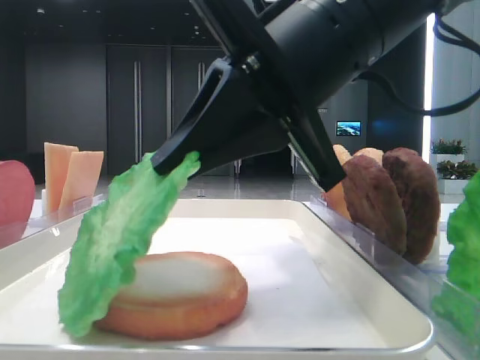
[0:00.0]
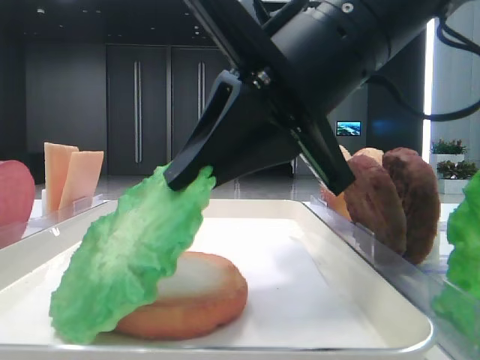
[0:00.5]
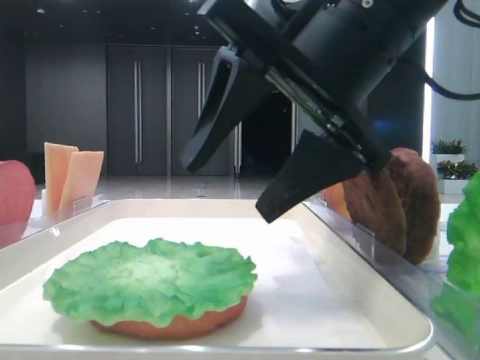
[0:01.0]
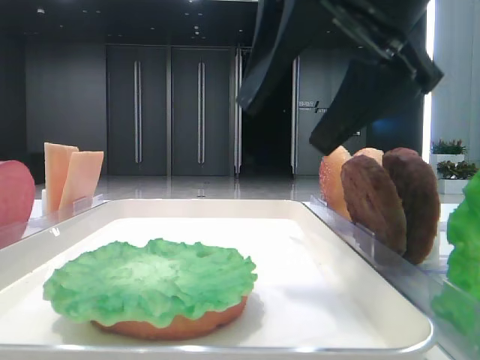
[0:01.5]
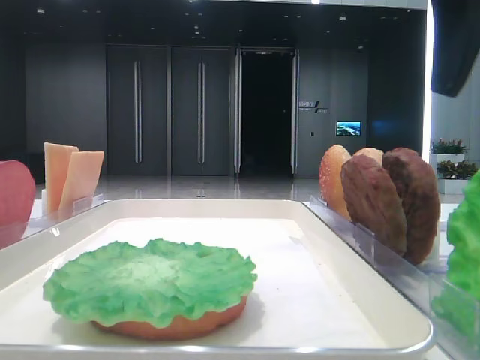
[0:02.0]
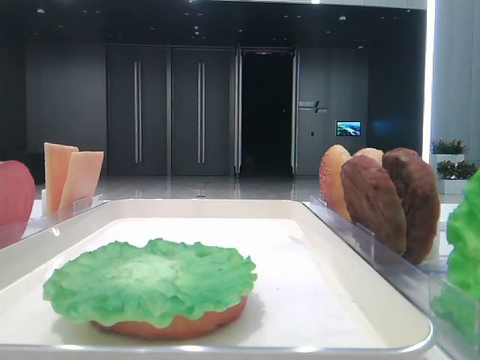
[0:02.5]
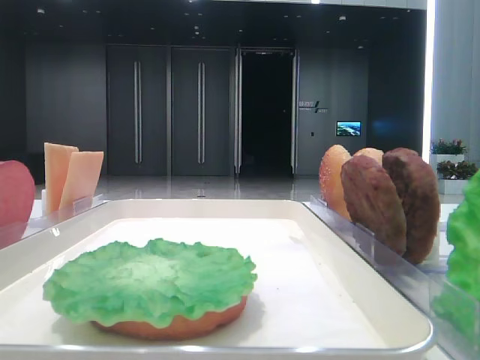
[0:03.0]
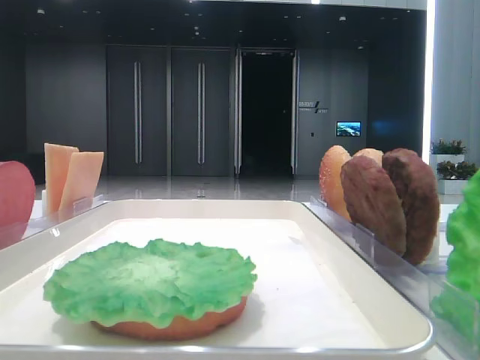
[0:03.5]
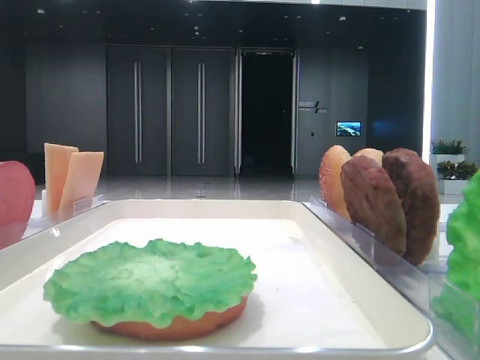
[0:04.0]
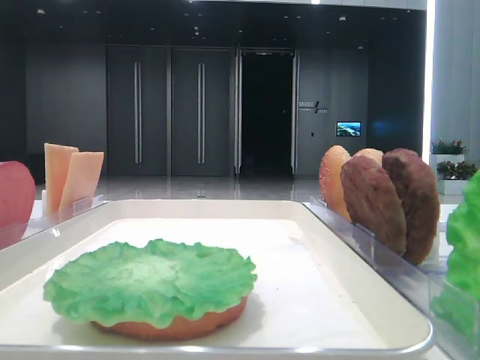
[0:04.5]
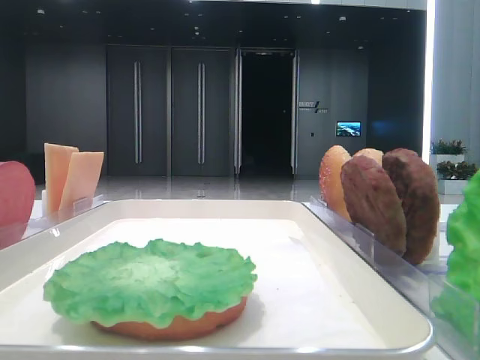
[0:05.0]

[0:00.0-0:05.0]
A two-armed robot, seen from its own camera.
0:00.0 to 0:02.5: The right gripper travels to the right by some 25 cm, and opens its fingers.

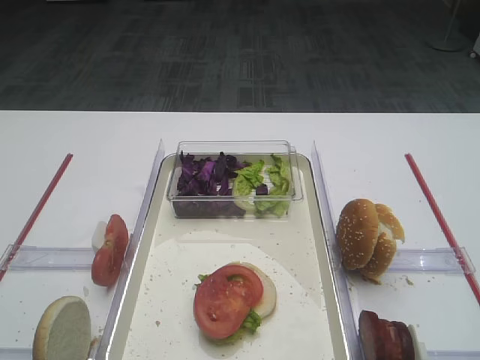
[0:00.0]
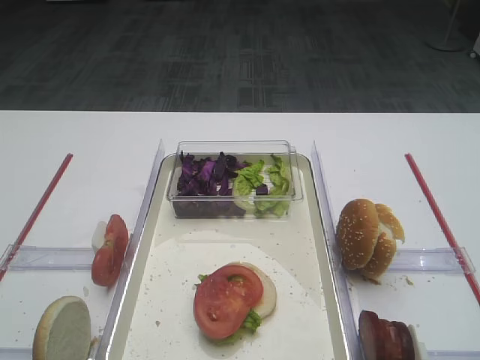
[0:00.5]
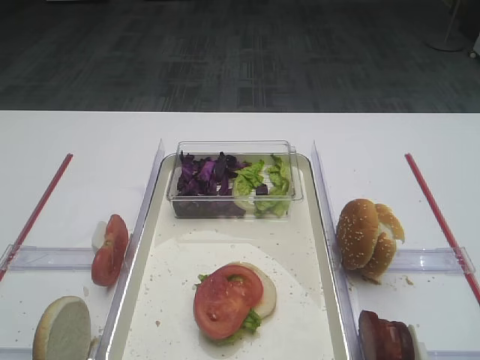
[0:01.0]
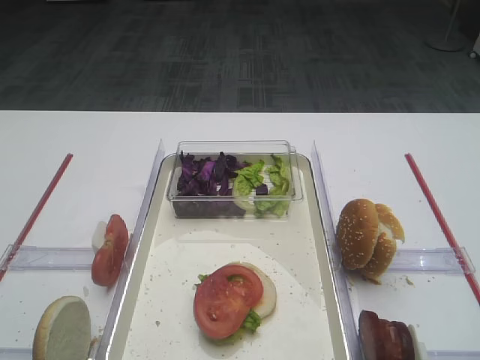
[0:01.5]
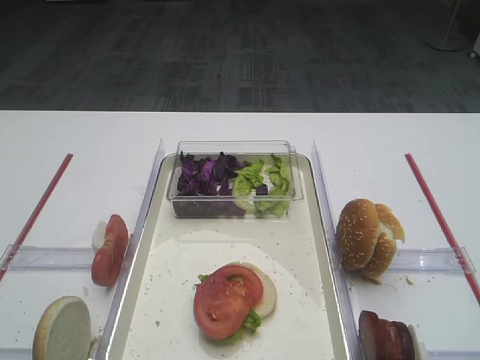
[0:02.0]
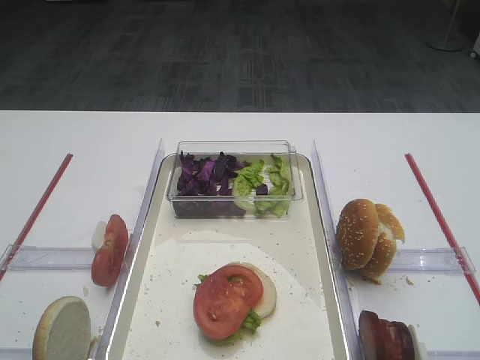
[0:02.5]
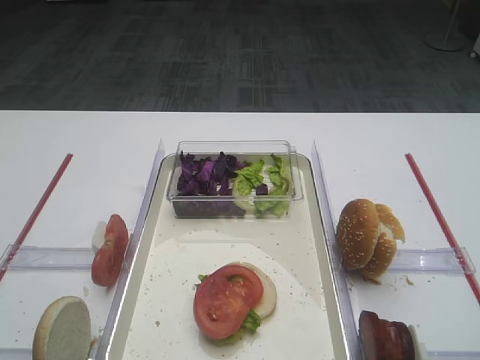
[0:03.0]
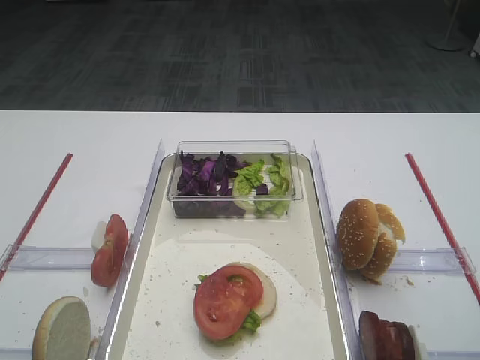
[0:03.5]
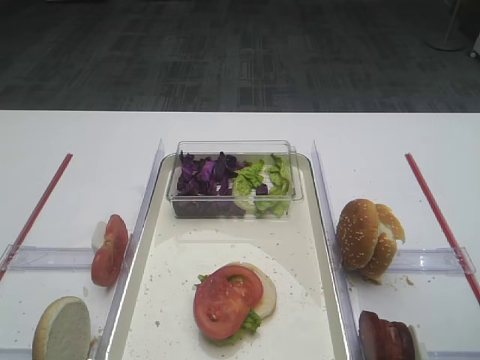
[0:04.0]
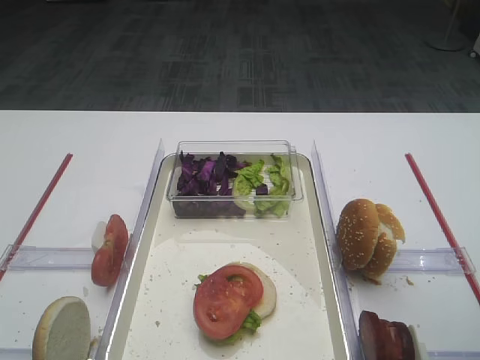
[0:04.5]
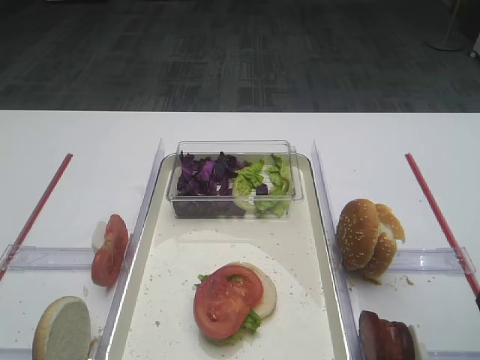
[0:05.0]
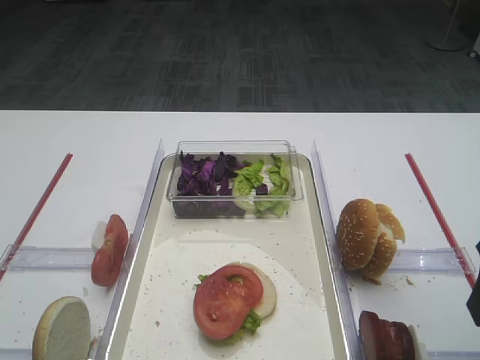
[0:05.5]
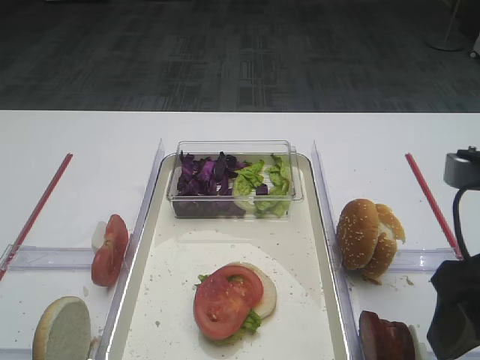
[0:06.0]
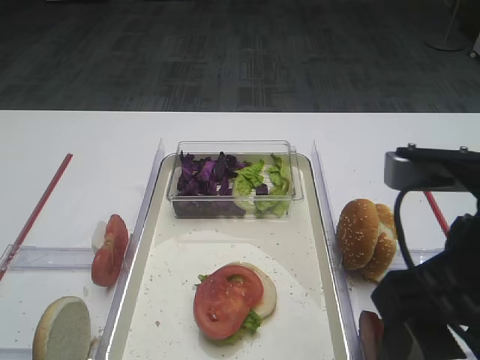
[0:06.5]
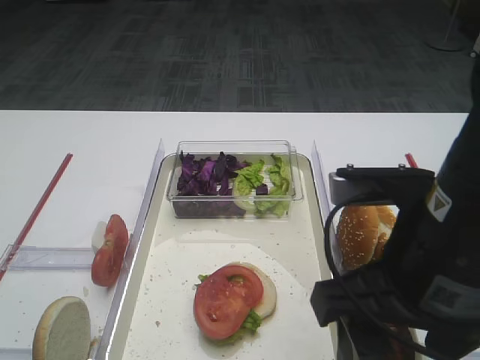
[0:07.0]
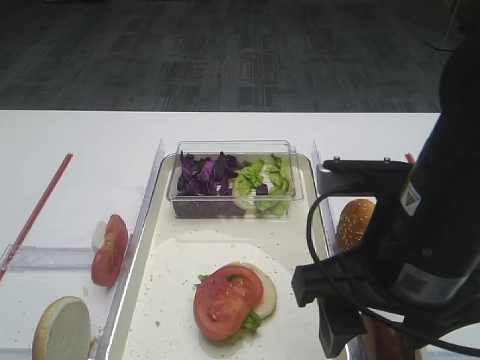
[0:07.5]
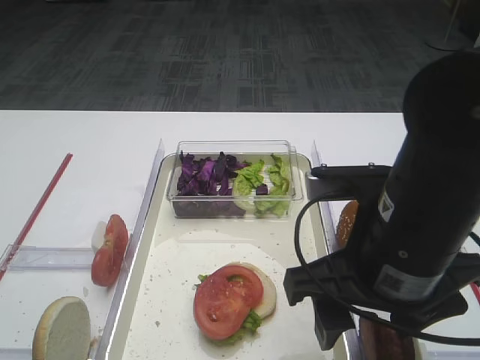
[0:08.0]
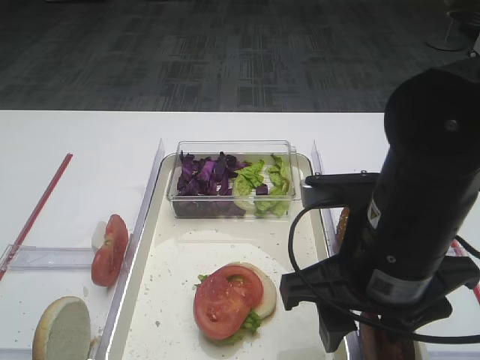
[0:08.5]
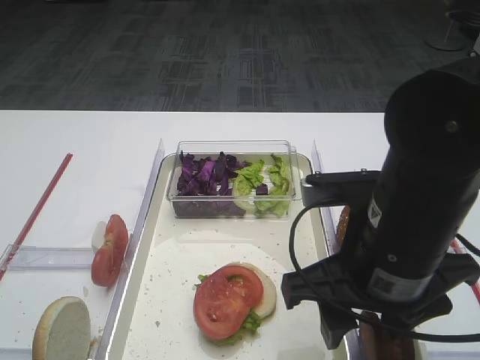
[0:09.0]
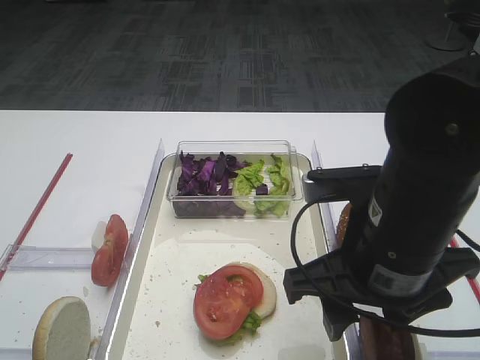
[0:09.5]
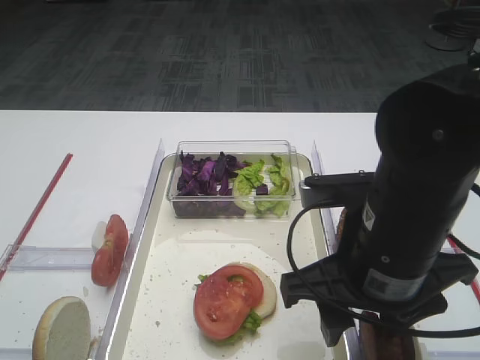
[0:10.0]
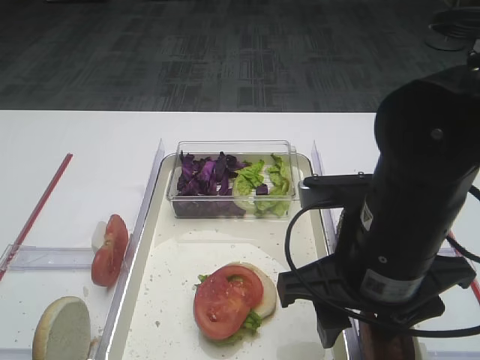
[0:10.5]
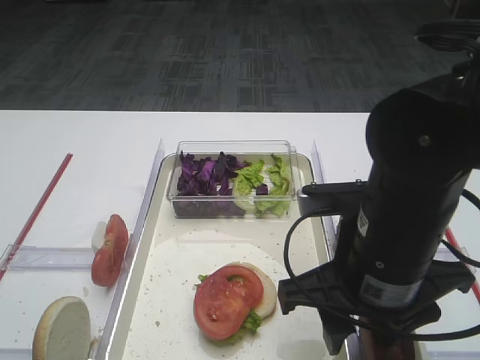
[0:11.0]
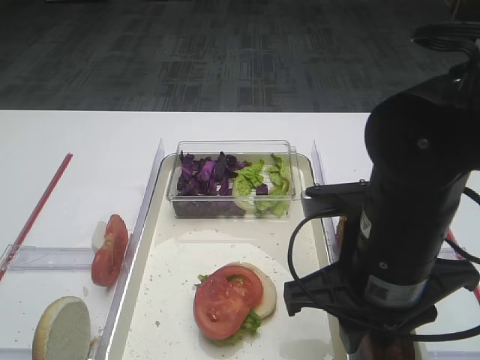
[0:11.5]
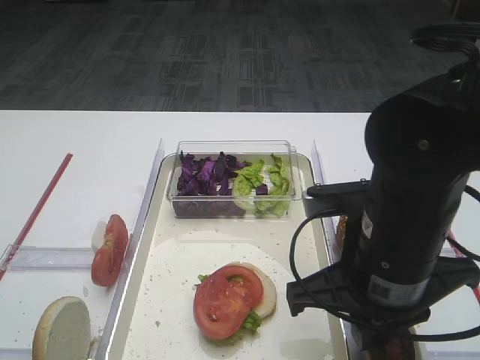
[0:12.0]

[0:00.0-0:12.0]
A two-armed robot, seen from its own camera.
0:02.0 to 0:04.0: The right gripper heads forward, covering some 15 cm.
0:04.0 to 0:06.0: The right gripper goes approximately 5 cm to the left.
0:06.0 to 0:08.0: The right gripper travels to the left by about 10 cm.
0:08.0 to 0:10.0: There are only small adjustments of the grippers.
0:10.0 to 0:12.0: The right gripper closes.

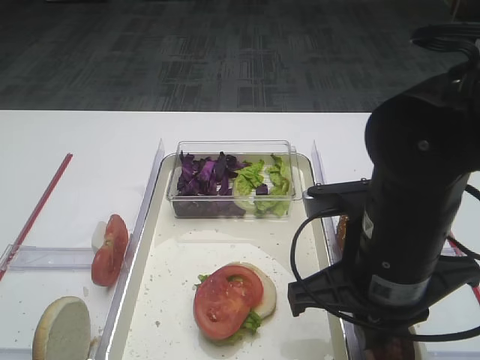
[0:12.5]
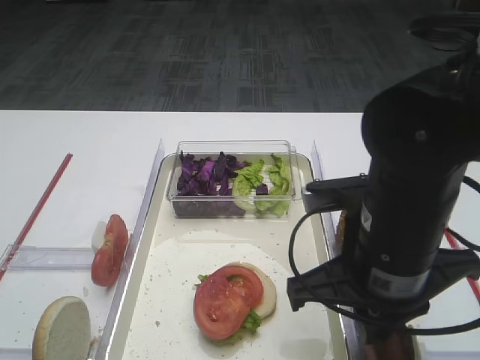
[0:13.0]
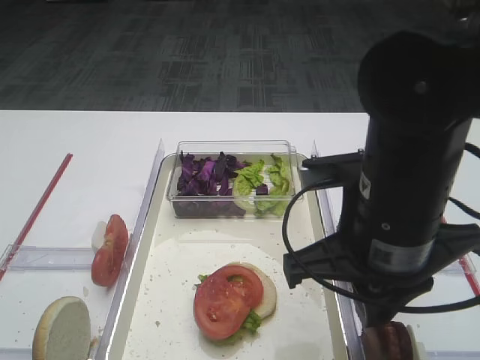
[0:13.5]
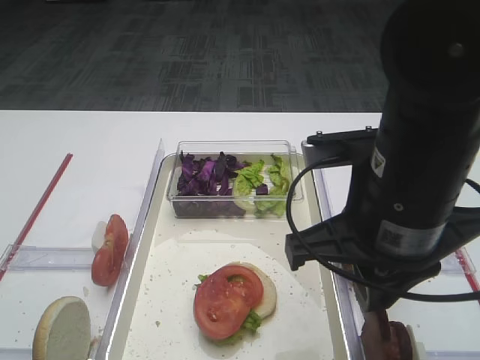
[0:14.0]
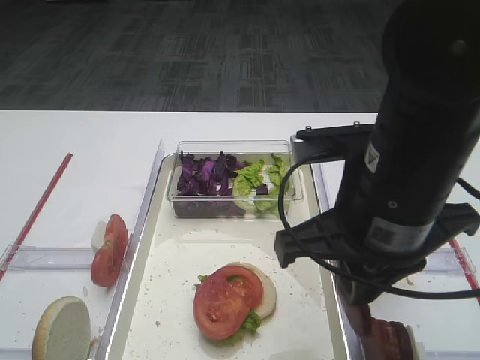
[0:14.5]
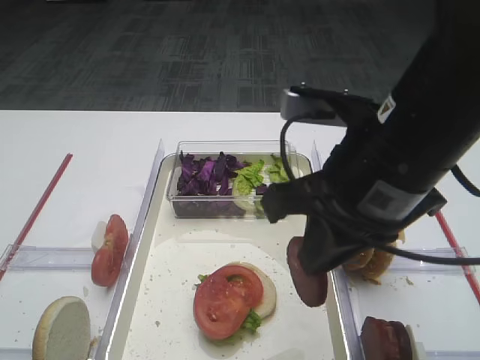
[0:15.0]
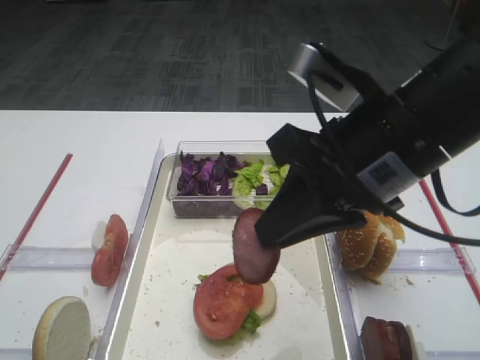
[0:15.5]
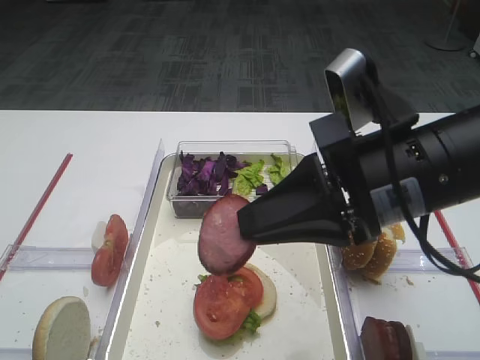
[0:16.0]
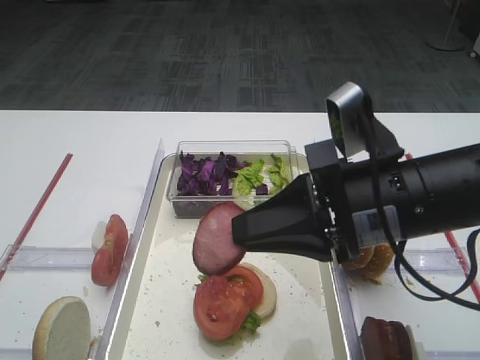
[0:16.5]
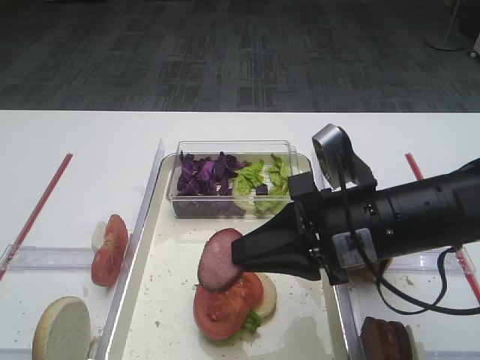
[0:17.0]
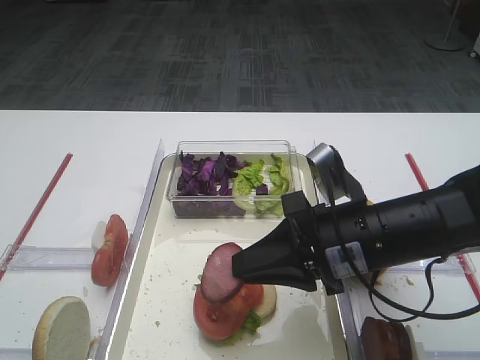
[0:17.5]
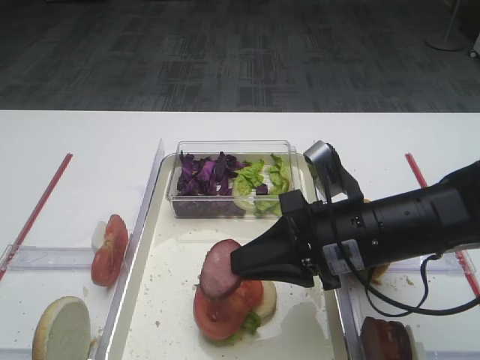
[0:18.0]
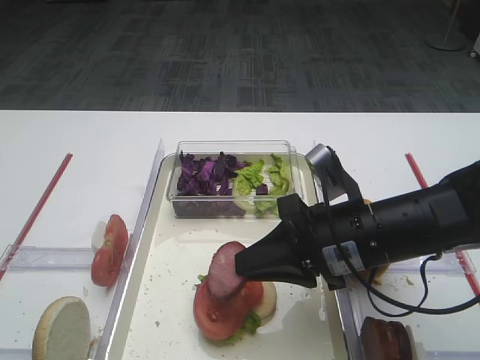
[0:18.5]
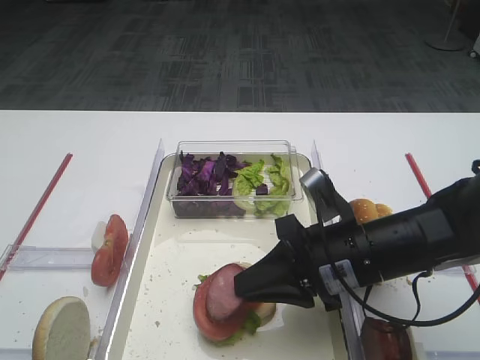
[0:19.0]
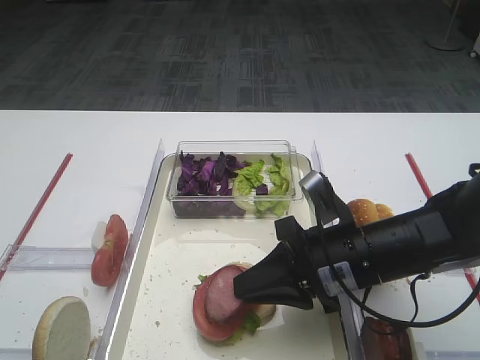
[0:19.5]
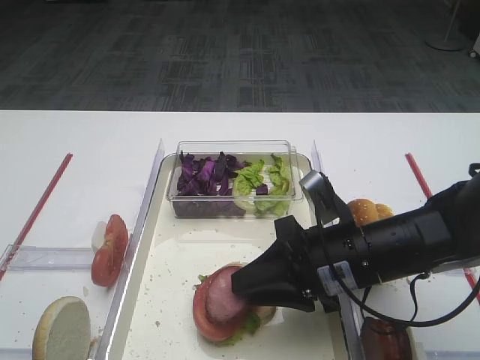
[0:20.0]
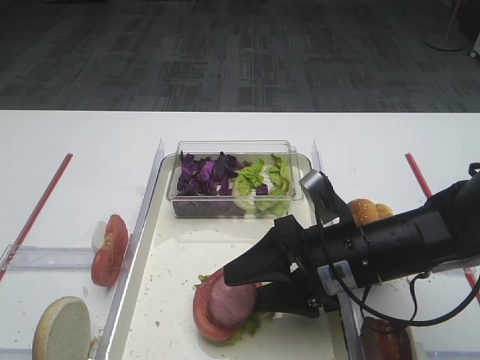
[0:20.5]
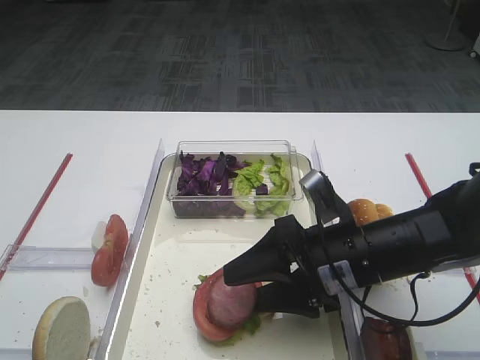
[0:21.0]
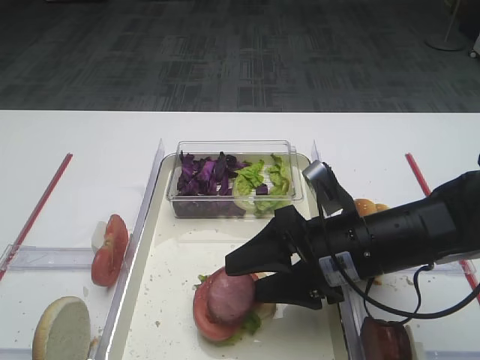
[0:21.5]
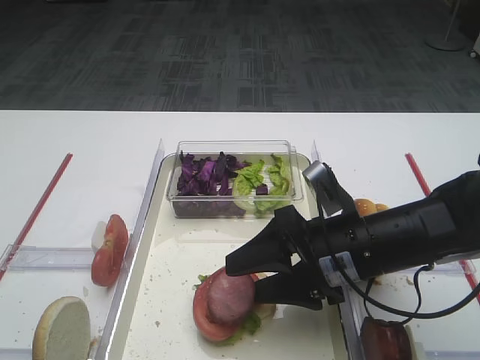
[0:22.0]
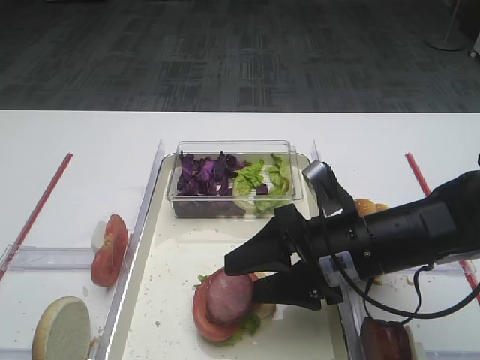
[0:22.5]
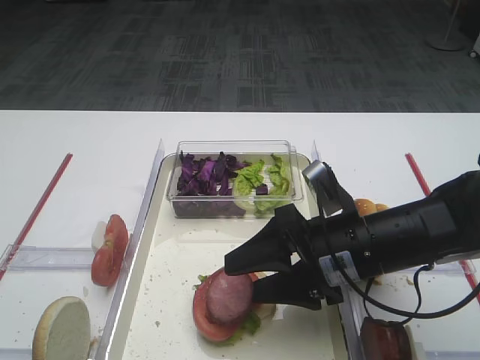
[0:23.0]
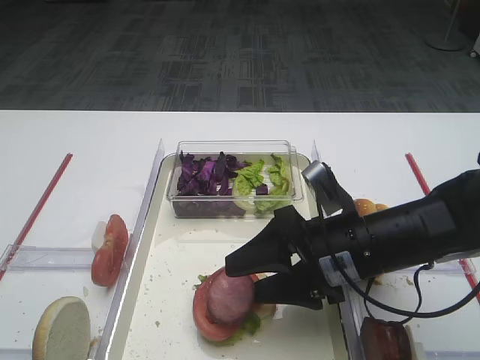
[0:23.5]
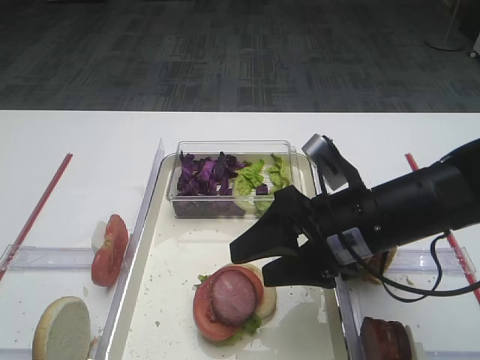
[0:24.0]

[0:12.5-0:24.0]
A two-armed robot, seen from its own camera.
0:12.5 to 0:14.5: The right gripper travels upward by roughly 5 cm.
0:16.5 to 0:18.5: The right gripper heads downward, covering about 5 cm.
0:18.5 to 0:20.0: The grippers move only a little.
0:20.0 to 0:22.0: The right gripper opens up.
0:22.0 to 0:24.0: The grippers stay close to where they were, moving slightly.
